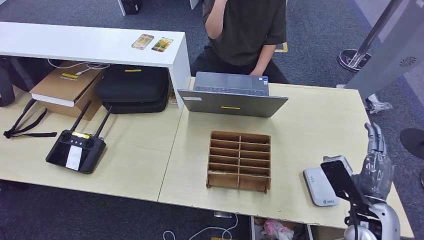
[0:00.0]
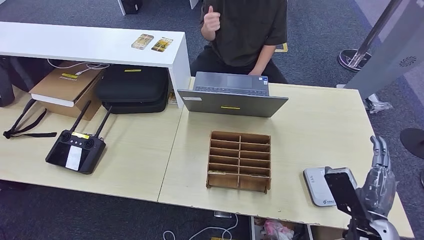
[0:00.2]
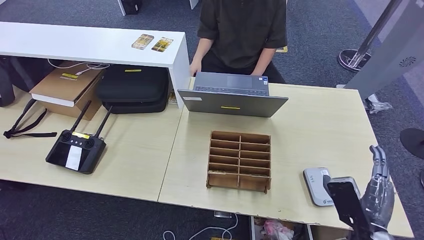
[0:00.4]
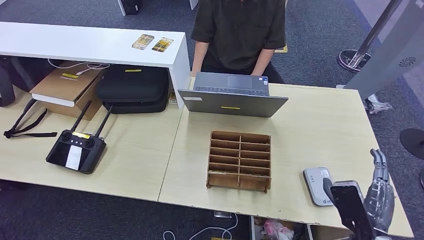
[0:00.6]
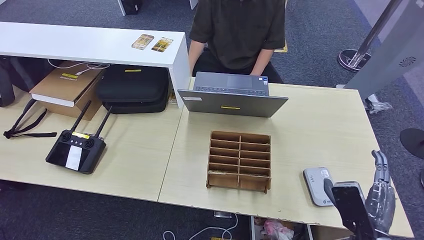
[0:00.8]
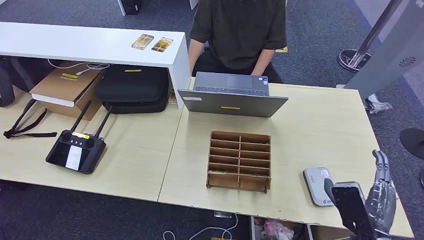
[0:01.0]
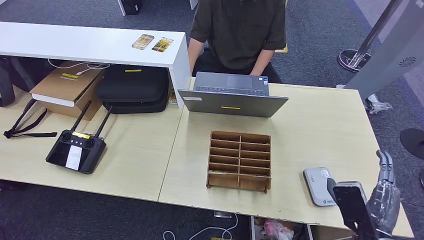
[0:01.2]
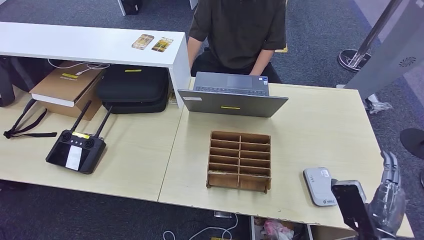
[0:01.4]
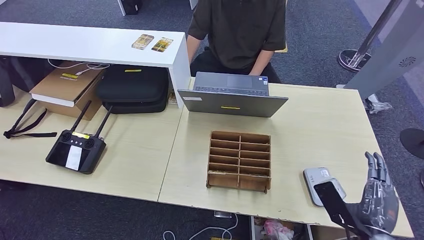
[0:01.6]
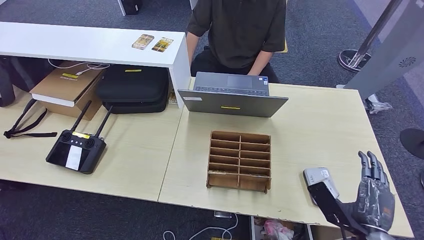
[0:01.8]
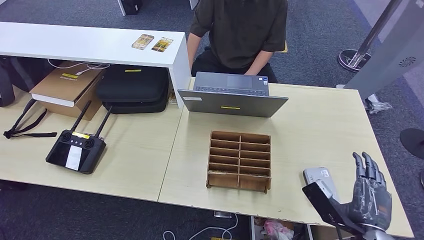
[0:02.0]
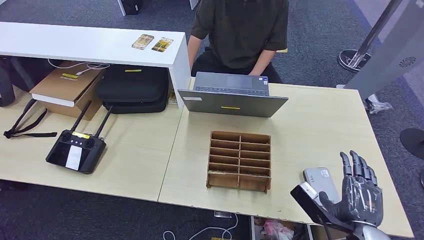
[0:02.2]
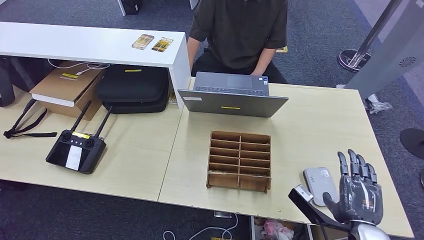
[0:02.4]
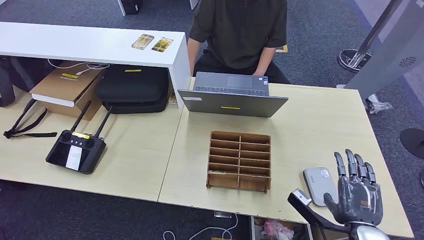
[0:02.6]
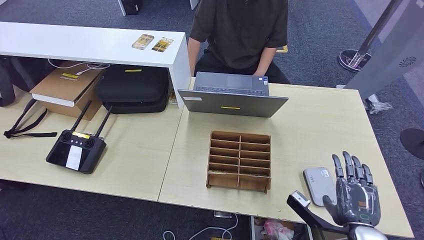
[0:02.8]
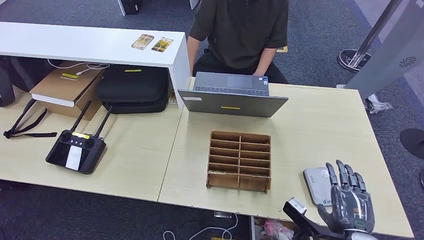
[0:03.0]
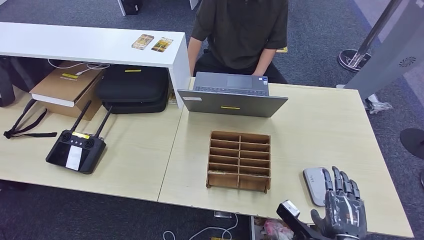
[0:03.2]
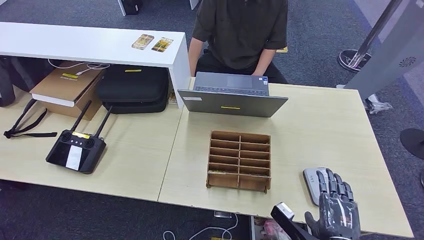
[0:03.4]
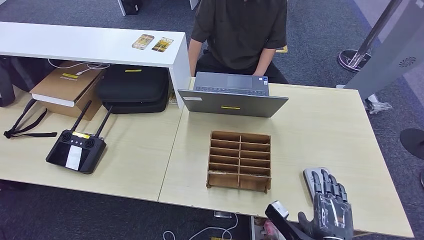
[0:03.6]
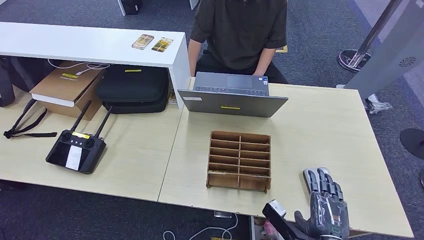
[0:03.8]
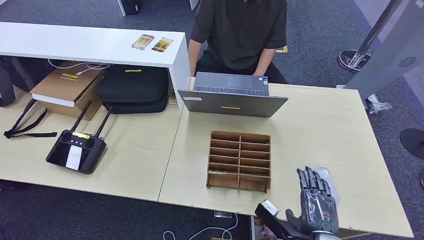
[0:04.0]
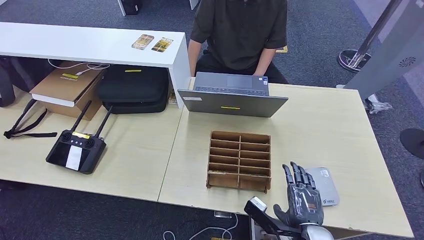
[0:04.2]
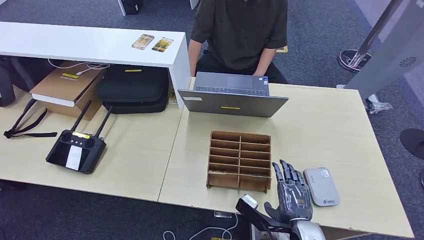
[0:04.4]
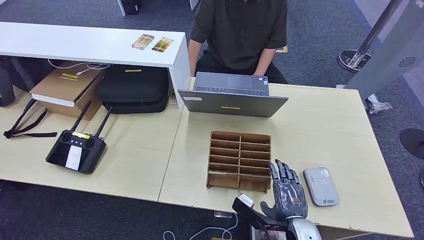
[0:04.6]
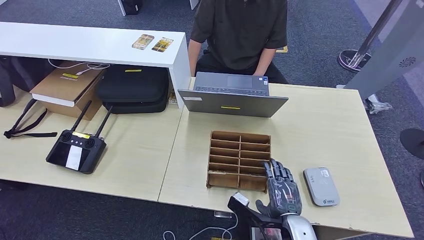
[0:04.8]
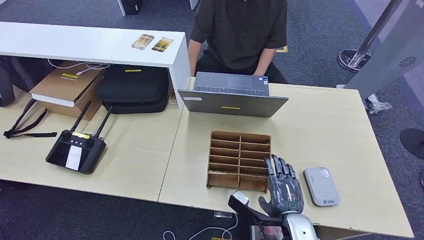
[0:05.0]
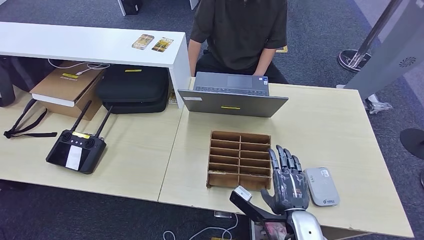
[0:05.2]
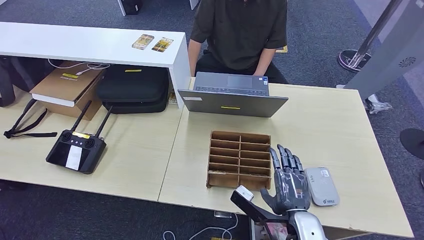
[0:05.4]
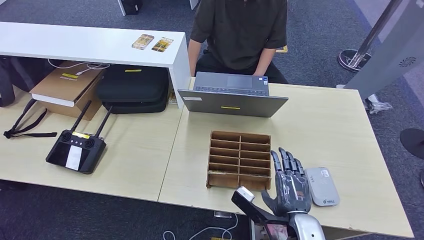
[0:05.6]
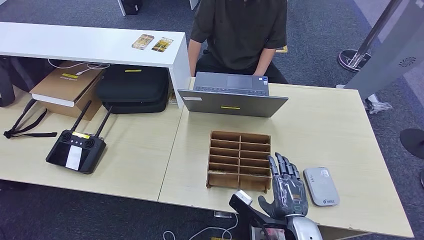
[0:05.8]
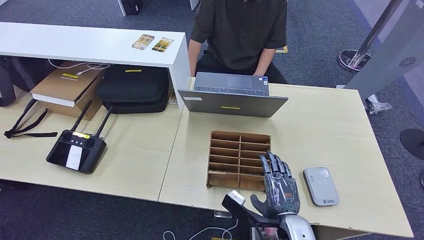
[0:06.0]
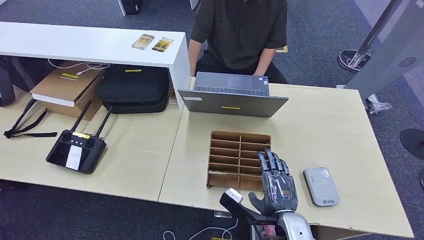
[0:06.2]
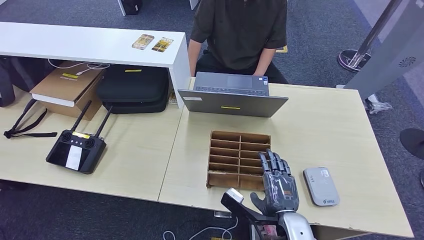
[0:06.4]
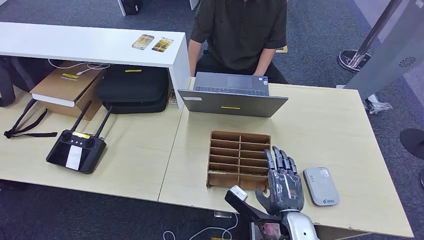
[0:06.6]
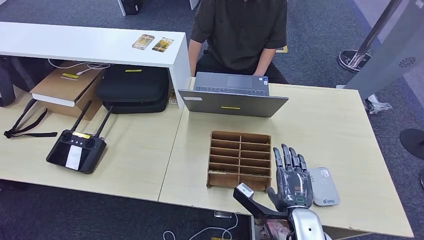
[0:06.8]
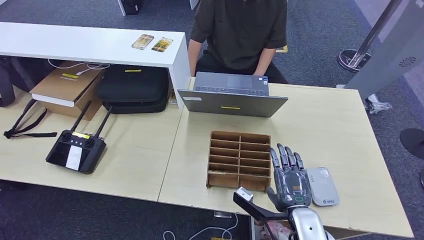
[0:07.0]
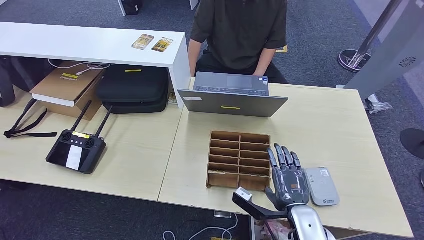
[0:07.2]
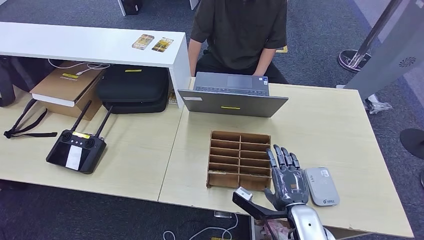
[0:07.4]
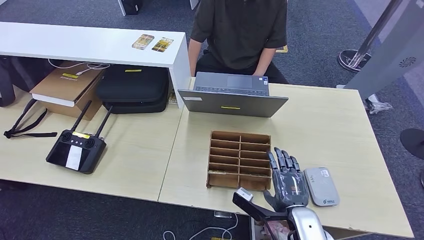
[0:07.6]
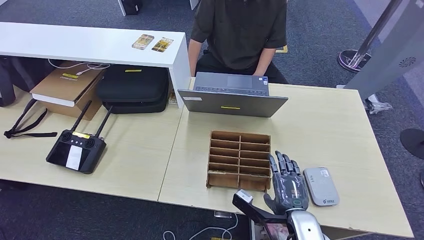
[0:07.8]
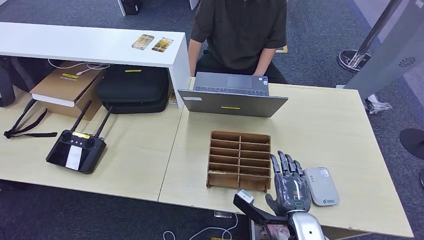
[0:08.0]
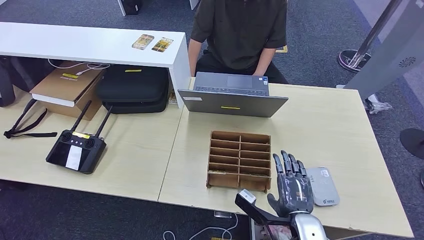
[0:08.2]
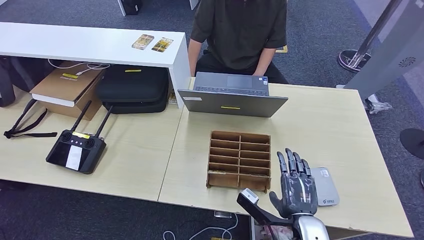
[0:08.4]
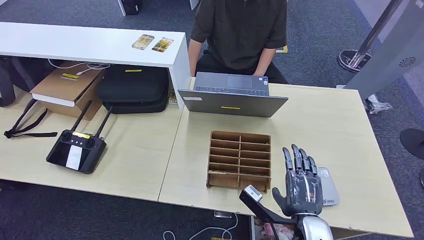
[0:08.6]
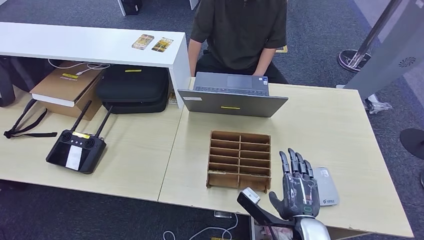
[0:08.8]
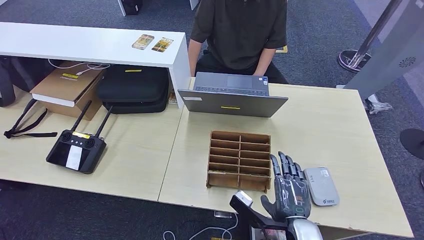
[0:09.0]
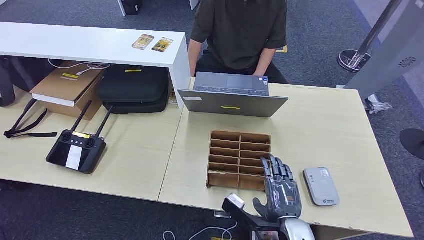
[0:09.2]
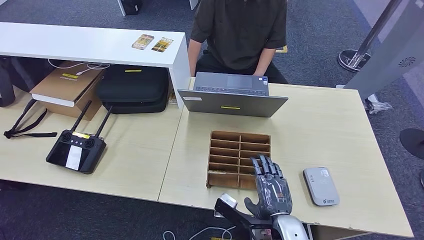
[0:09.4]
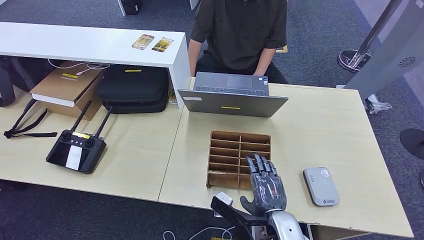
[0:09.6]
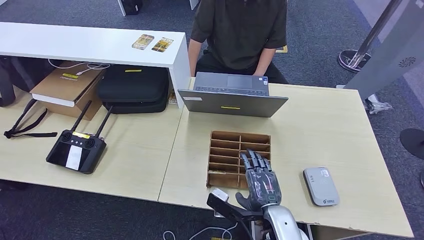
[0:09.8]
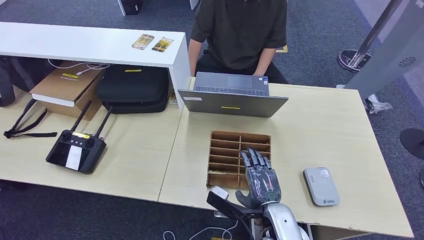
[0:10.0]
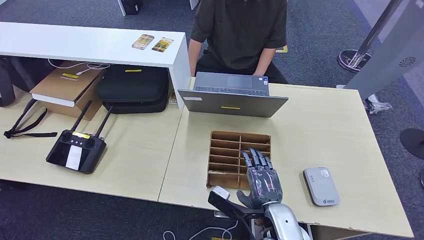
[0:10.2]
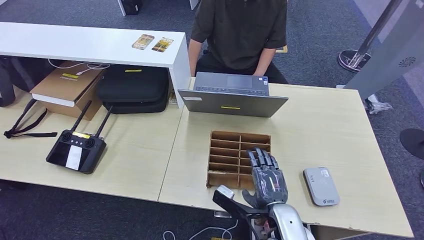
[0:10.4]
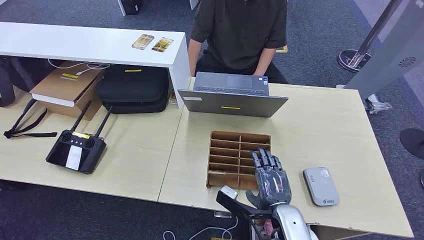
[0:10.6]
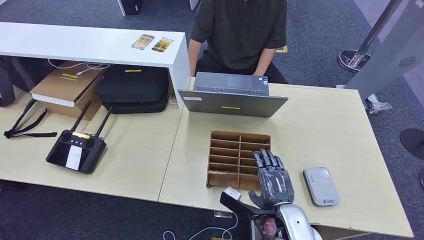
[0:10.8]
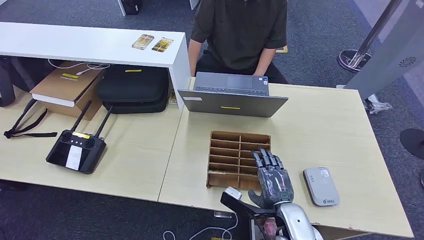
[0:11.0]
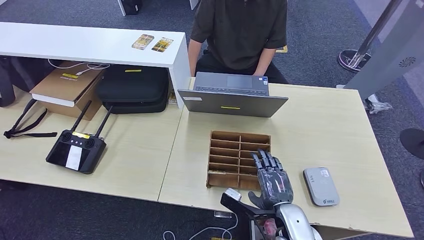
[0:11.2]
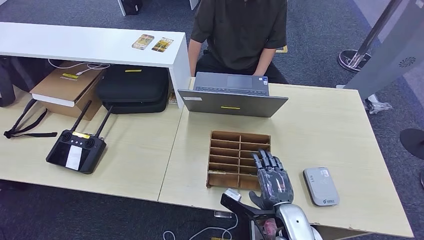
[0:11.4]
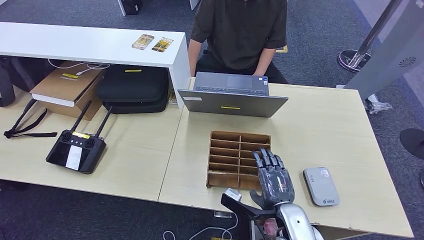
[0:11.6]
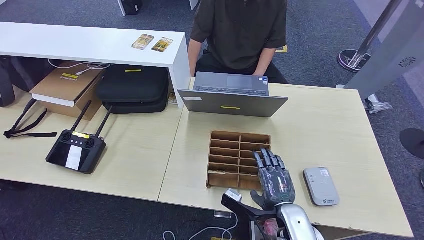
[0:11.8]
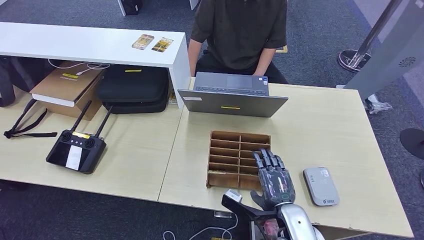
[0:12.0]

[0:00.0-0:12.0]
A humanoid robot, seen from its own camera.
0:00.0 to 0:01.6: The right hand travels backward by some 5 cm.
0:03.0 to 0:04.4: The right hand travels to the left by about 10 cm.
0:04.4 to 0:09.0: The hands make only small movements.
0:09.0 to 0:12.0: The hands stay close to where they were, moving slightly.

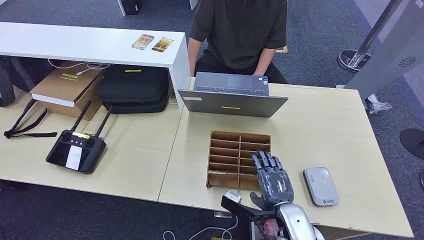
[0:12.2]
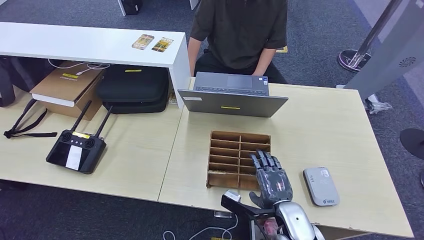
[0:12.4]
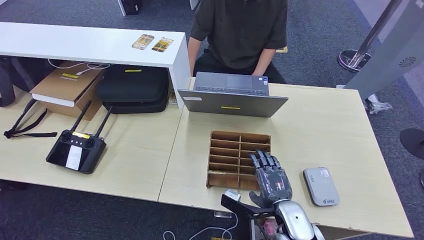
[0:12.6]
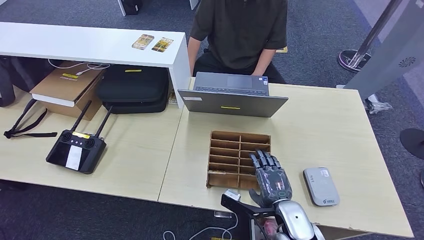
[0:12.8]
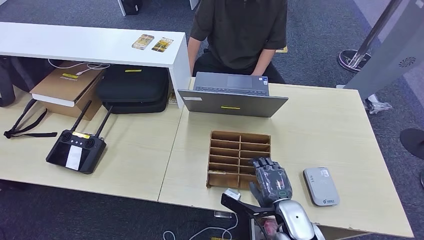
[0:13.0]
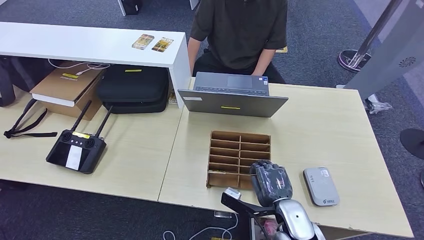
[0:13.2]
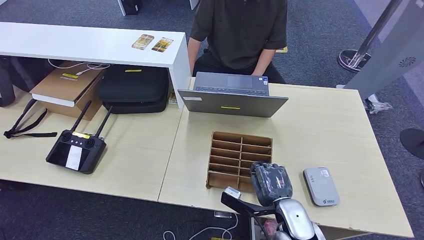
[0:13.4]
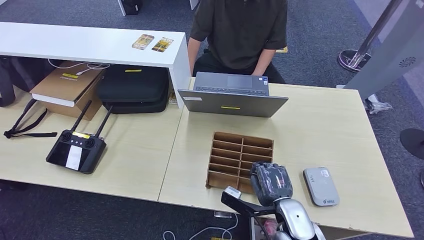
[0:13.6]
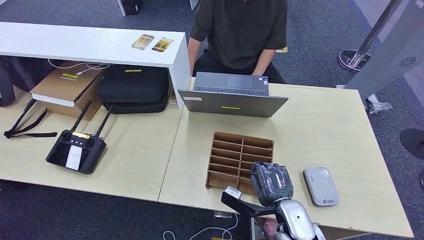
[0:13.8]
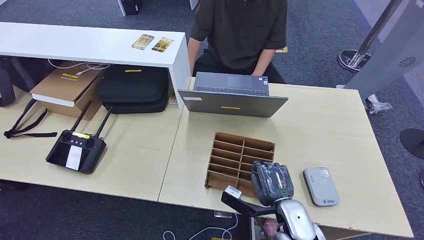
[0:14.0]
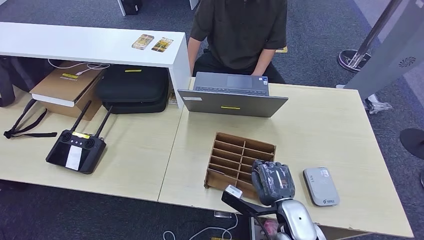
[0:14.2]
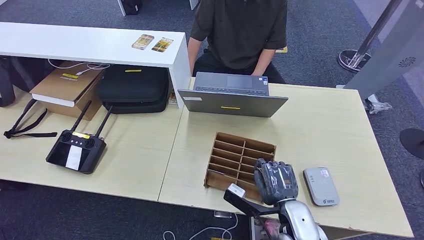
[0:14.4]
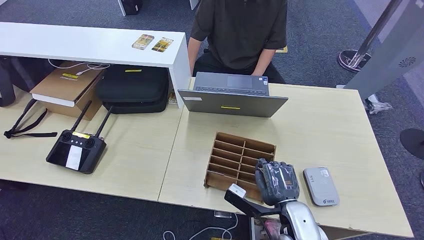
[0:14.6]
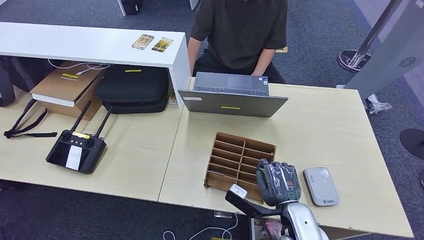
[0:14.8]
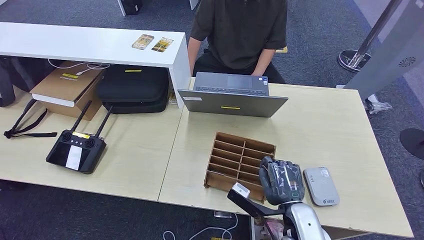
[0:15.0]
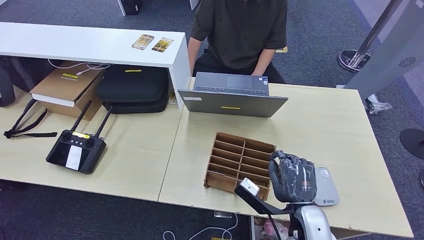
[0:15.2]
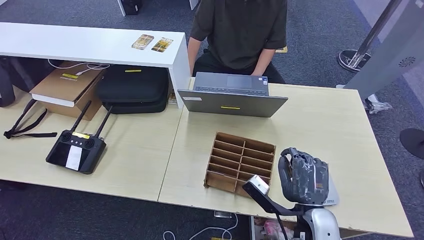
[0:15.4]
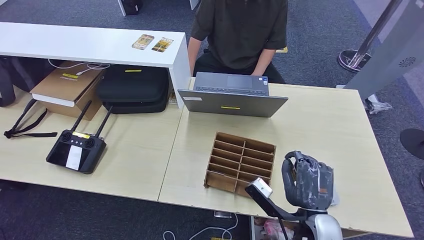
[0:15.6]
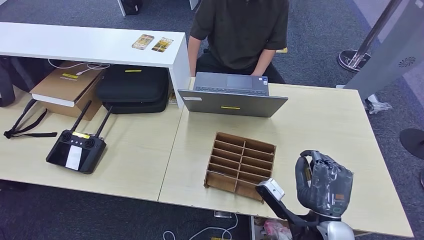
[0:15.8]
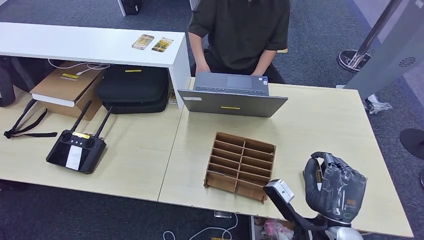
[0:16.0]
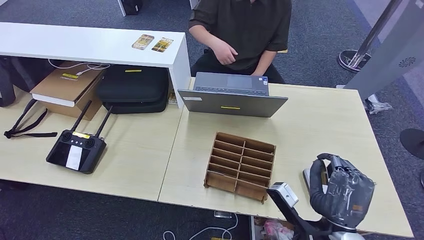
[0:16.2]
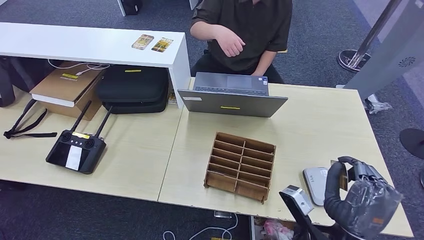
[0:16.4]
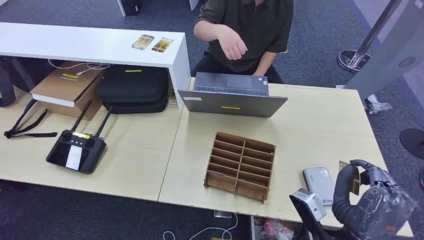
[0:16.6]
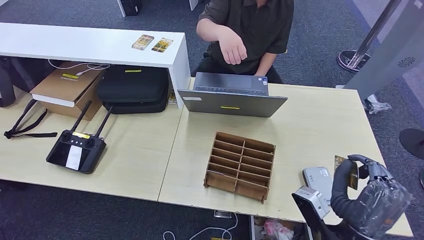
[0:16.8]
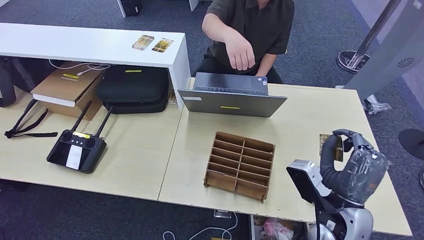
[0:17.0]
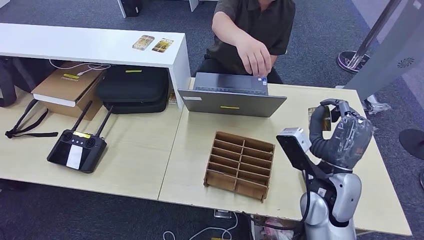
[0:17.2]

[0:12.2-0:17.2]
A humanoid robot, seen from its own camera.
Step, 0:12.2 to 0:15.2: Pick up the room key from the key card box.
0:12.2 to 0:13.8: Both hands stay put.
0:13.8 to 0:15.6: The right hand shifts by approximately 5 cm.
0:15.6 to 0:17.2: The right hand goes some 10 cm forward and upward.
